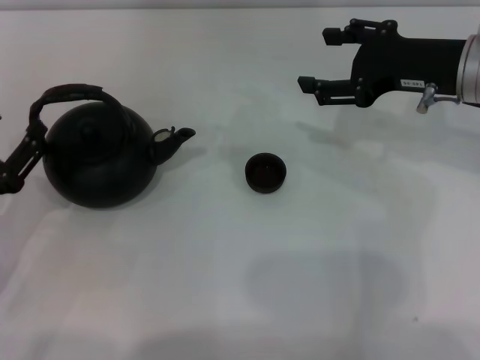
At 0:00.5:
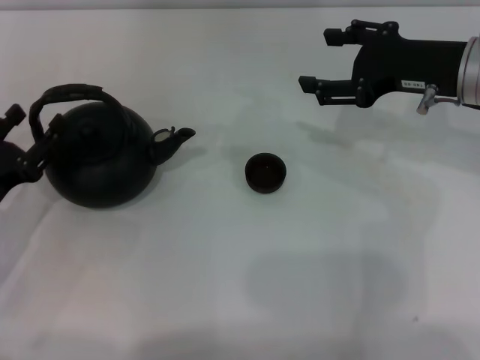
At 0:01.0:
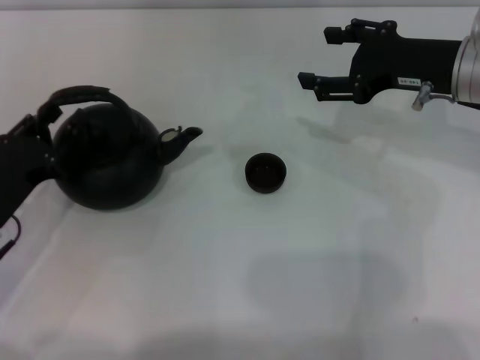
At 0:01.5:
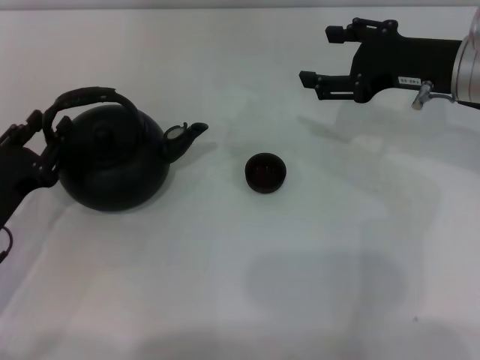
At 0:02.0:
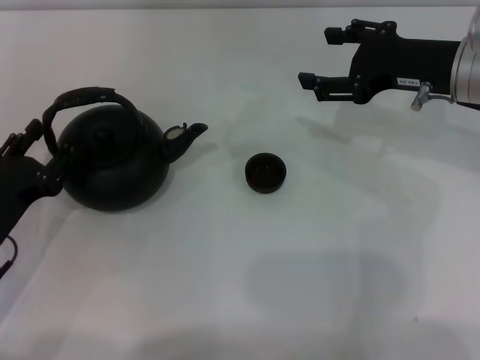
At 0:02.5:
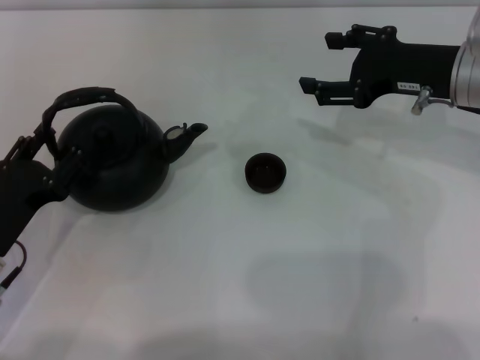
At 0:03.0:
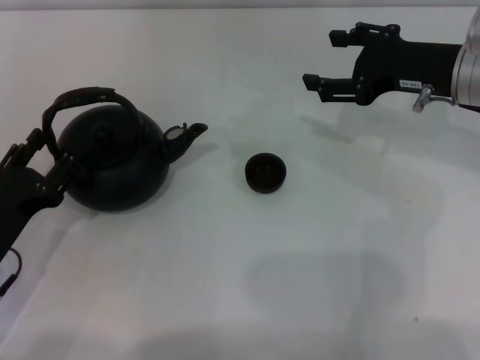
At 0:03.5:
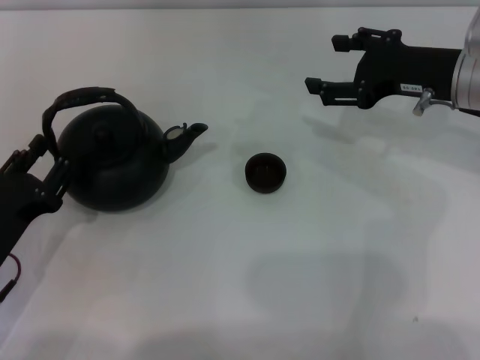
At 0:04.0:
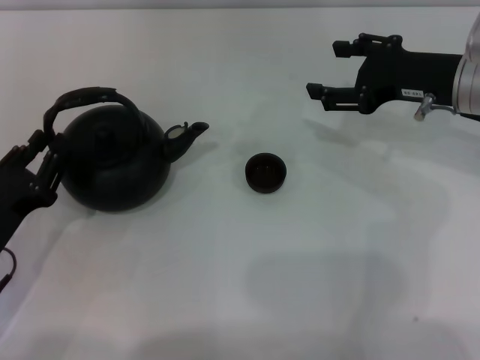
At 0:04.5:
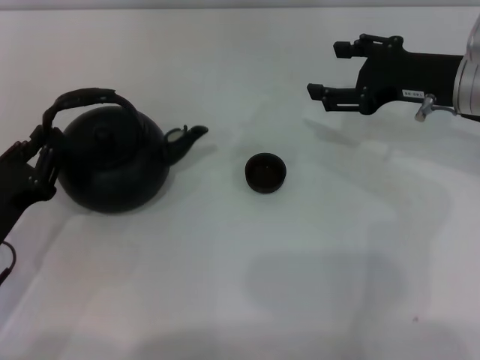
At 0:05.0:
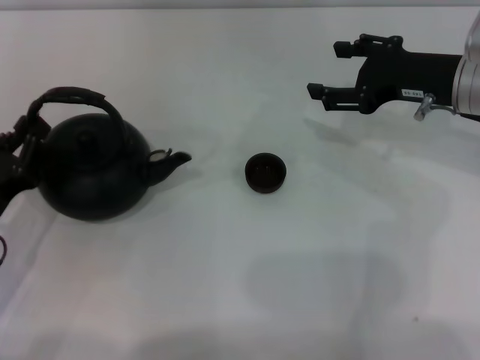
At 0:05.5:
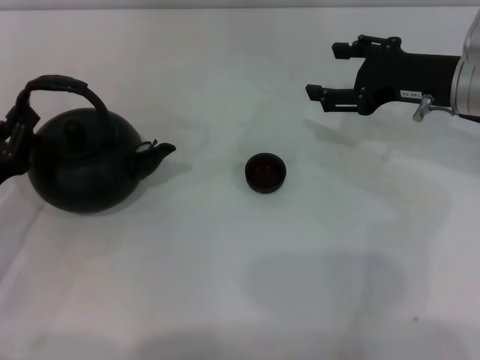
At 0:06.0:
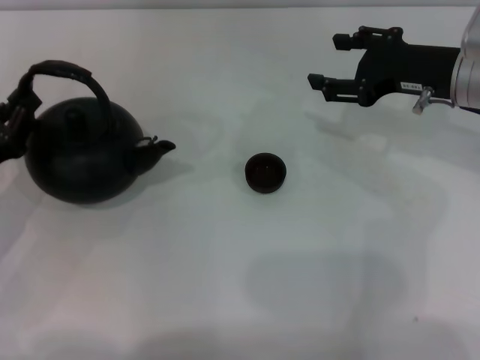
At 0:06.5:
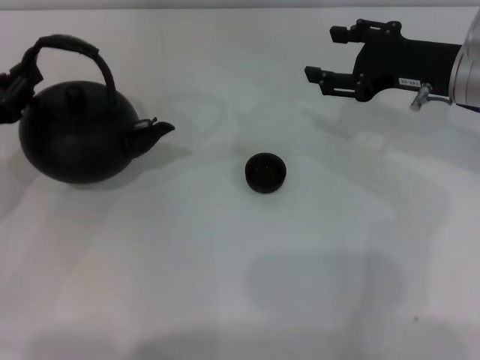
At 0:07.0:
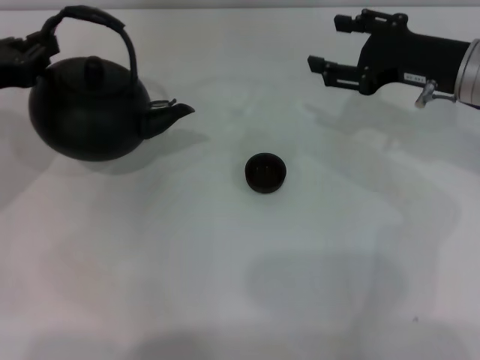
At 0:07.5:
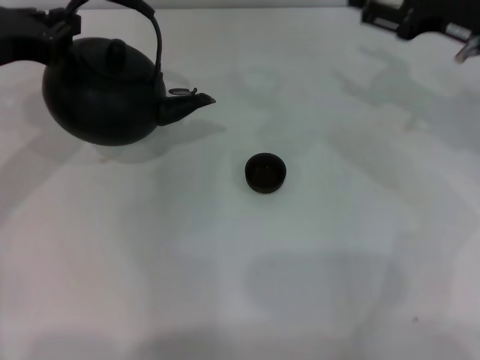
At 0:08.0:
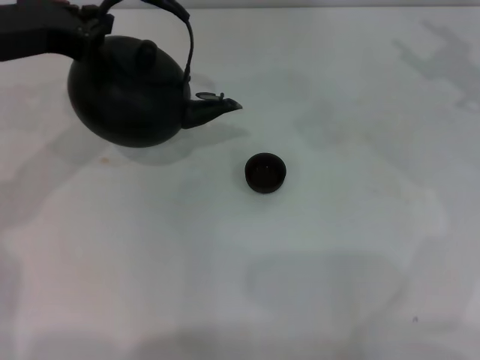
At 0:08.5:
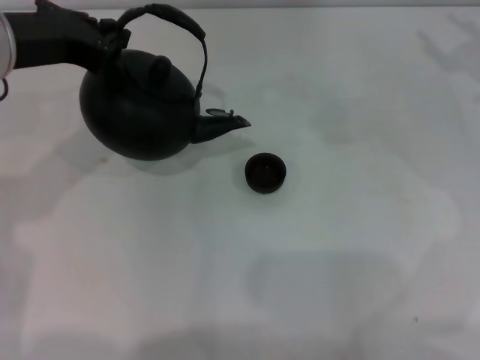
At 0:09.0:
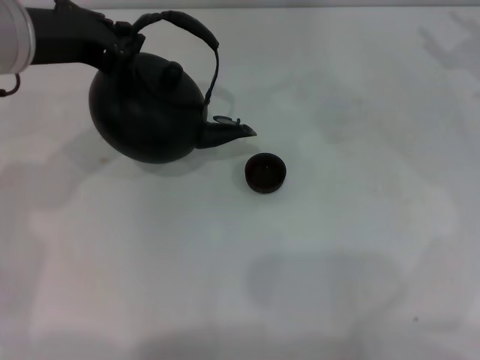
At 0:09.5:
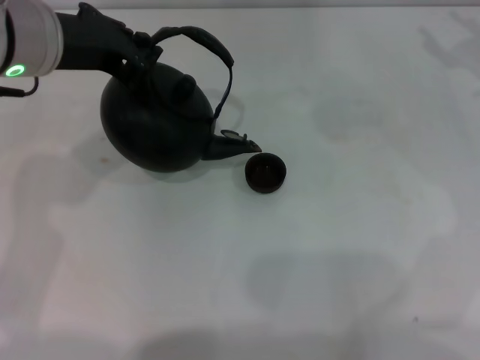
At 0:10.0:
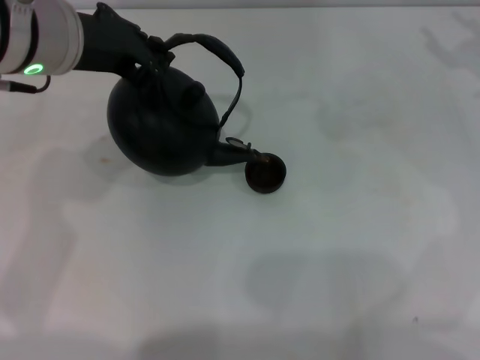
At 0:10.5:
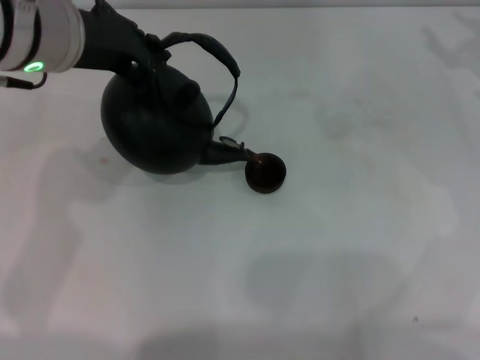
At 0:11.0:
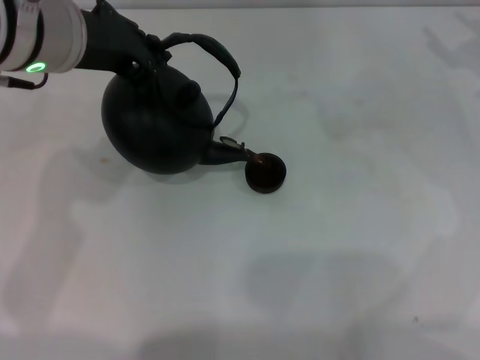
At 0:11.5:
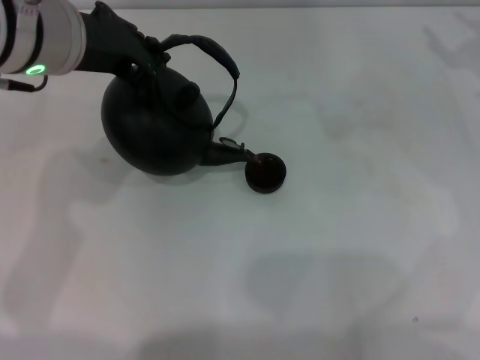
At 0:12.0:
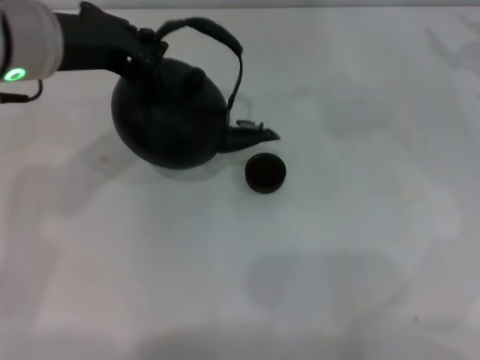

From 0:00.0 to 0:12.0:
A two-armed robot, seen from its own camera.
Task of the whole recording: Grasp the handle of the teapot with one hand and pour tea into the teacup.
Step, from 0:00.0 to 0:04.5: Pick up the teapot with the left gripper.
From 0:00.0 to 0:02.0: The grippers move only a little.
From 0:02.0 to 0:04.0: The left gripper closes.
From 0:04.0 to 0:06.0: The left gripper shifts by about 5 cm.
From 0:06.0 to 0:08.0: The right gripper goes roughly 10 cm to the right. Meanwhile the left gripper travels upward, forward and to the right by approximately 20 cm.
From 0:08.0 to 0:10.0: The left gripper shifts roughly 5 cm to the right.
From 0:10.0 to 0:12.0: There are only small adjustments of the grippers.

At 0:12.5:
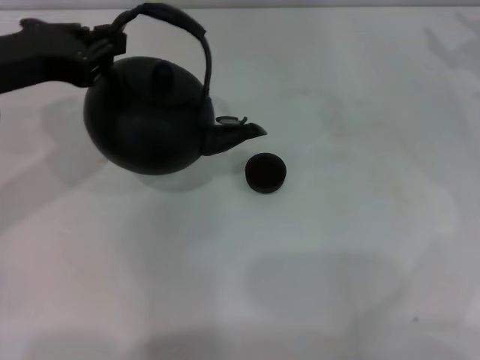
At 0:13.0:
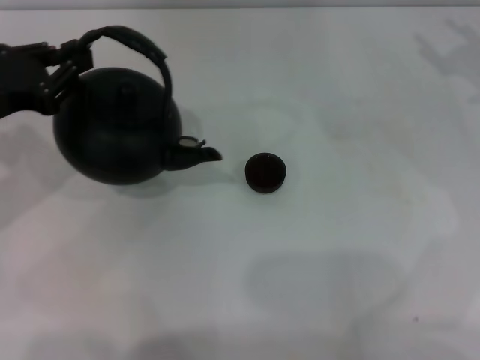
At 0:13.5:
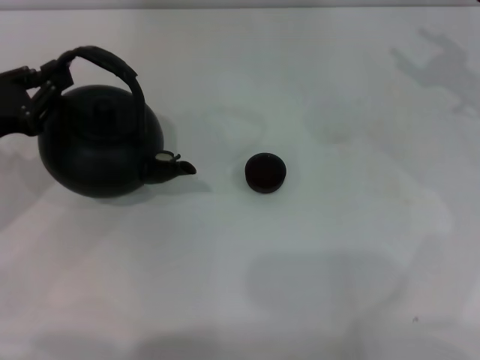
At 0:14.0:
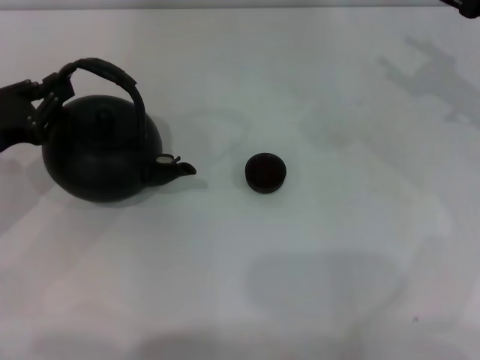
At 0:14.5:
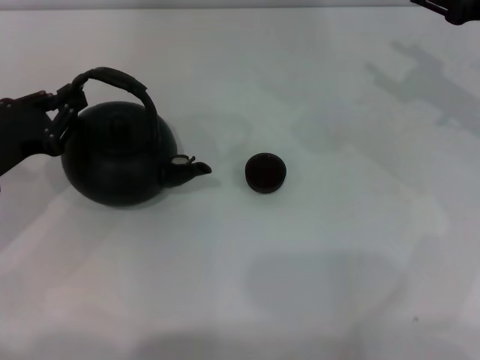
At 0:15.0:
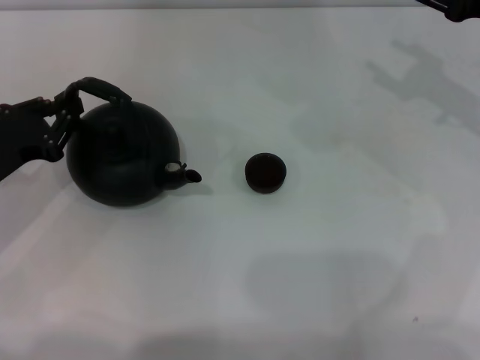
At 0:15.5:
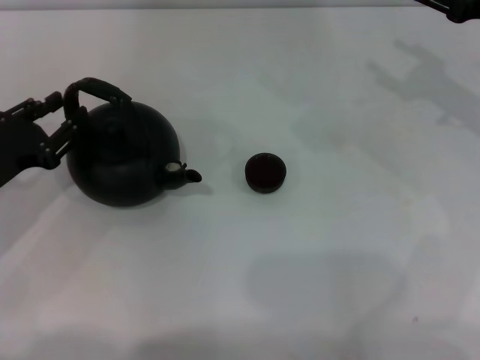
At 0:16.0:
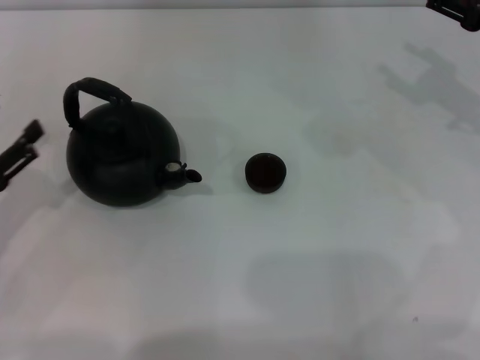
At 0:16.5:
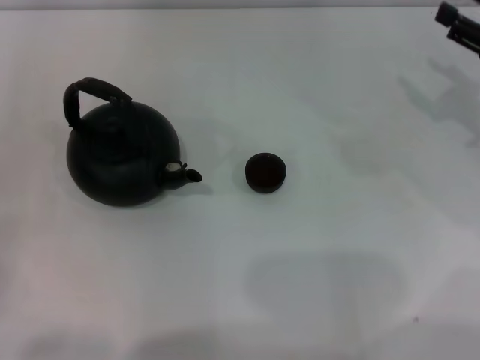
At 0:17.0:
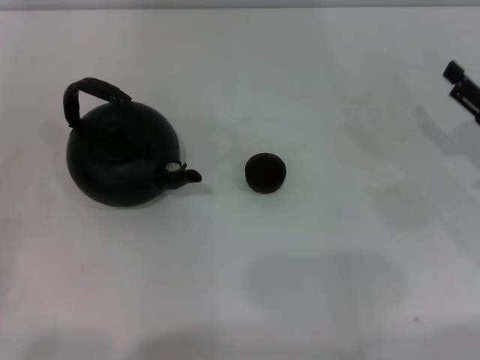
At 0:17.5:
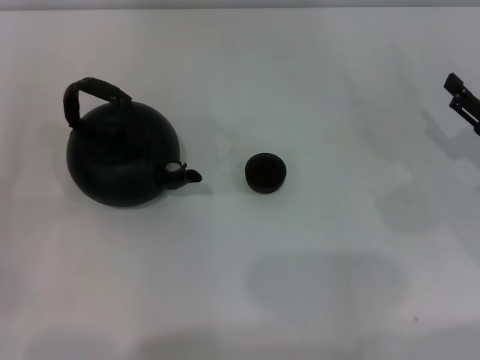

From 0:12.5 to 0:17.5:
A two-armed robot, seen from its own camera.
Task of the whole recording: Grasp the handle of the teapot with one hand and pour tea into the teacup.
Step, from 0:13.0 to 0:15.5: Put down the teapot with the left gripper.
From 0:12.5 to 0:15.0: The left gripper moves downward and to the left, approximately 15 cm.
From 0:15.0 to 0:17.5: The left gripper travels backward and to the left by approximately 15 cm, and opens. Meanwhile the right gripper shifts roughly 15 cm downward and backward.
